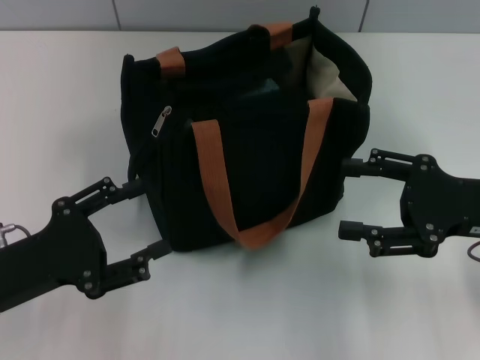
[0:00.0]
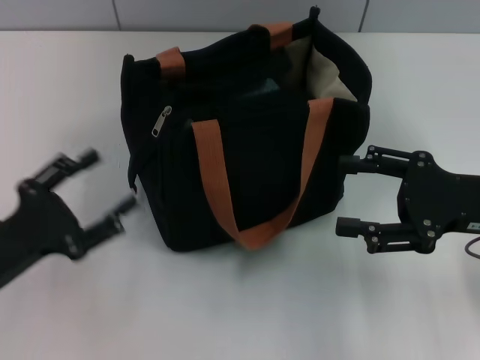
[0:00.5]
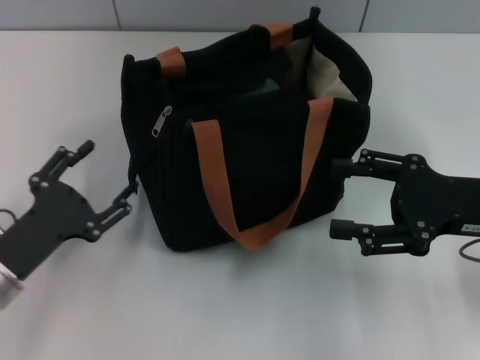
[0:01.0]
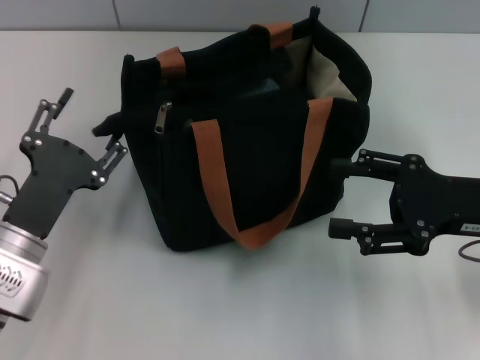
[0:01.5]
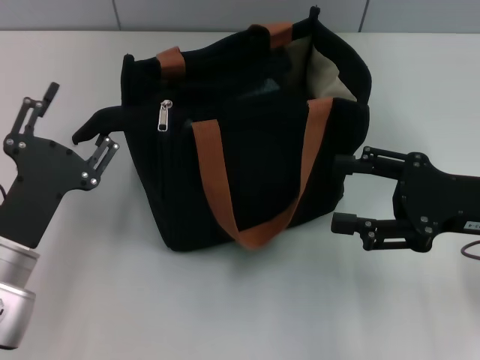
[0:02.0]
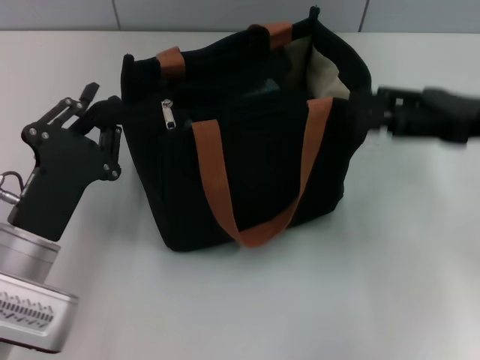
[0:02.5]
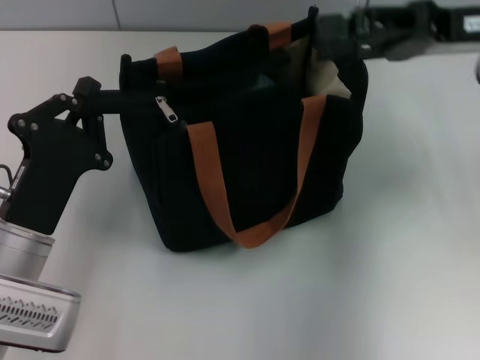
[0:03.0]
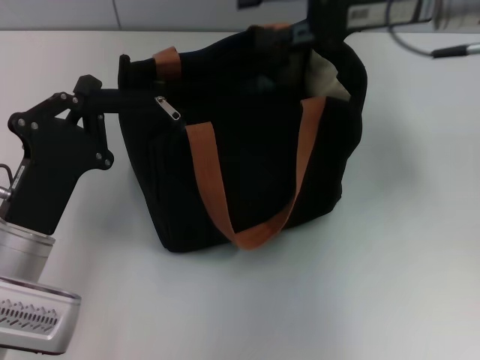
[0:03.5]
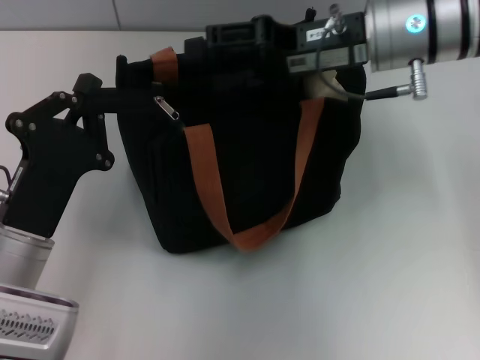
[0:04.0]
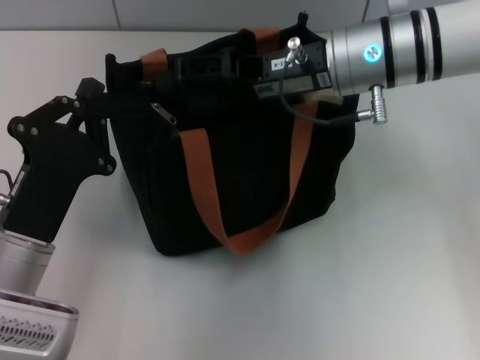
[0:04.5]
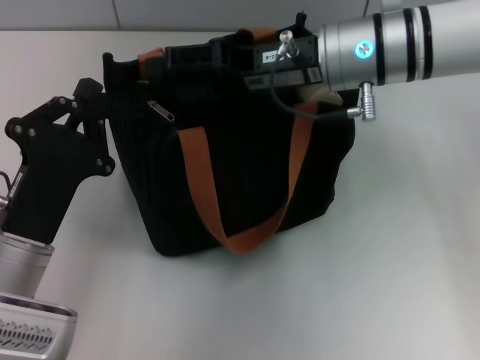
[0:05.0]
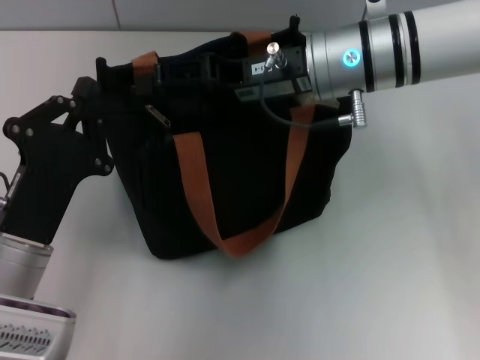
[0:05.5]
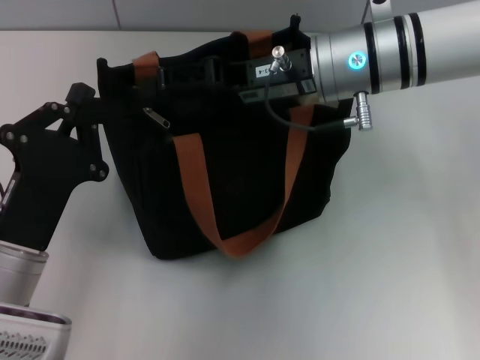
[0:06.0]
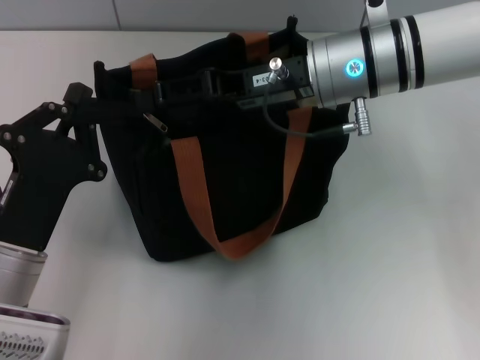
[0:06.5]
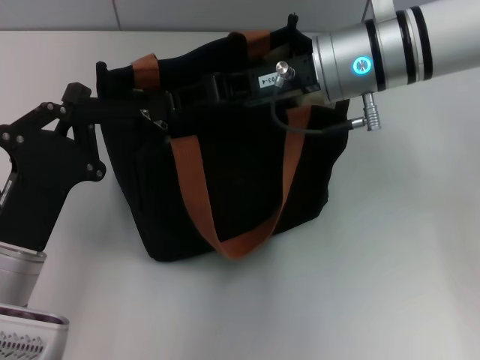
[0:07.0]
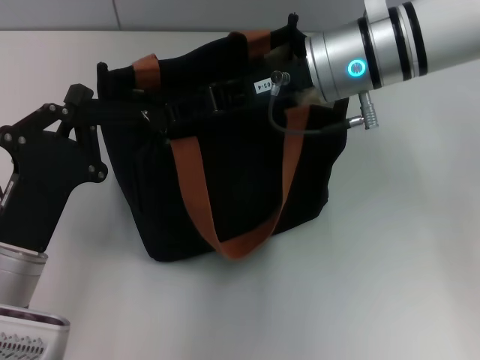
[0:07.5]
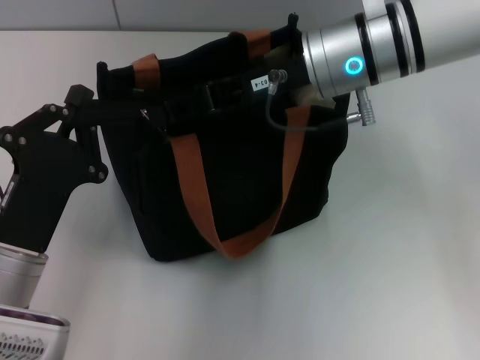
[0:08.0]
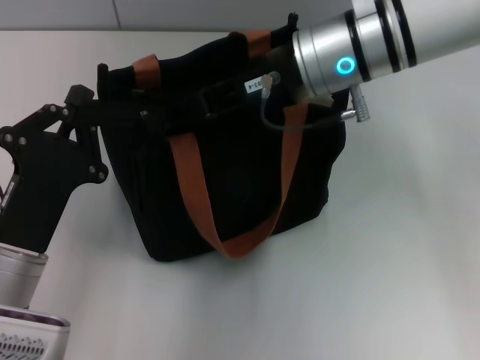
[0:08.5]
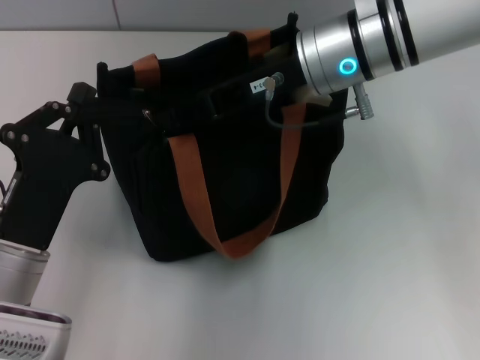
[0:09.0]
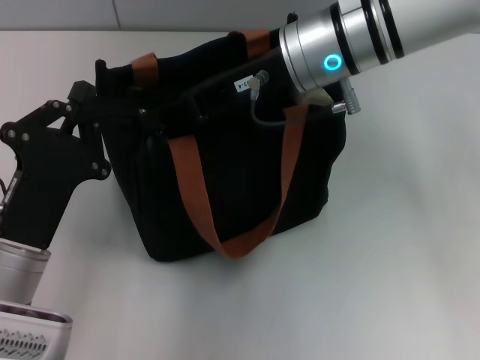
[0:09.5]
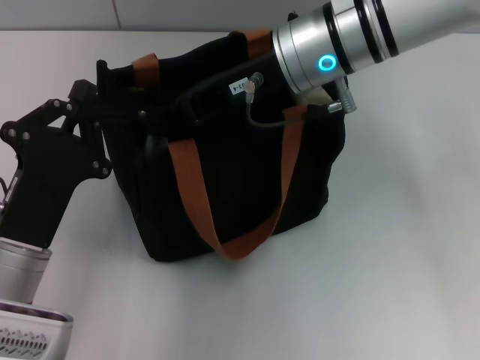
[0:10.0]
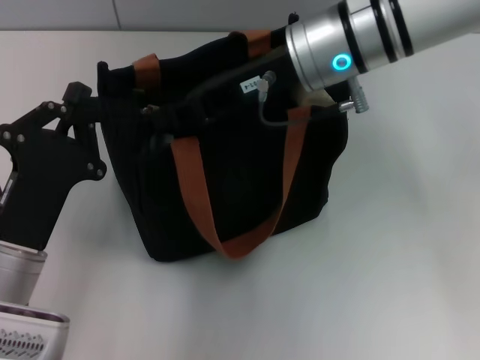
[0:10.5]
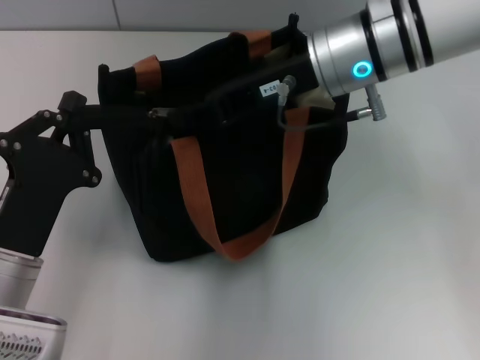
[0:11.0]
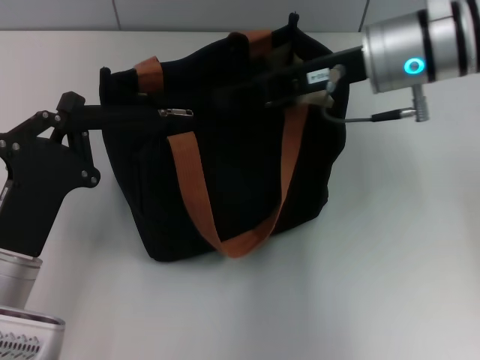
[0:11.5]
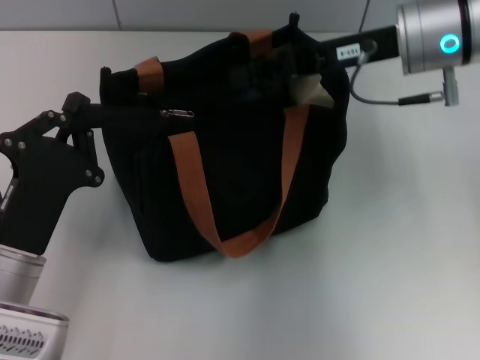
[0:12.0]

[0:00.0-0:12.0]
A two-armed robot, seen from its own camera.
0:00.0 to 0:02.0: The left gripper changes place by approximately 5 cm.
0:02.0 to 0:04.0: The left gripper closes up, while the right gripper is displaced to the left, forward and upward by about 20 cm.
0:06.0 to 0:08.0: The right gripper closes its fingers.
0:08.0 to 0:10.0: The grippers stay close to where they were, moving slightly.
0:10.0 to 0:12.0: The right gripper goes roughly 10 cm to the right.

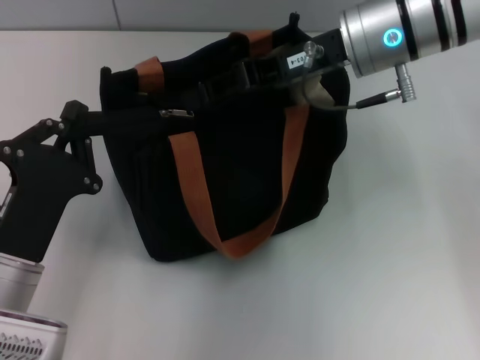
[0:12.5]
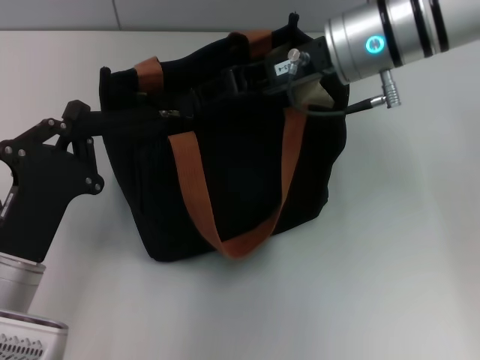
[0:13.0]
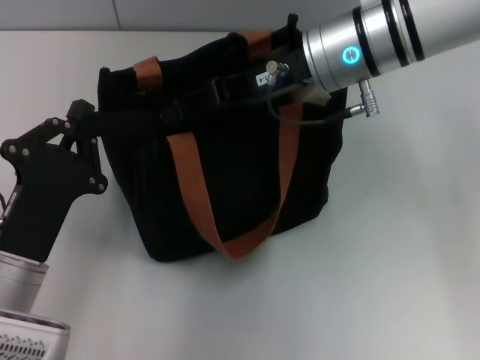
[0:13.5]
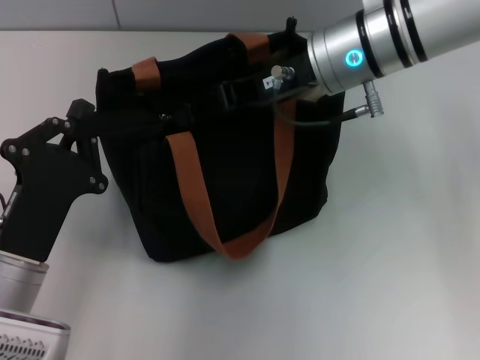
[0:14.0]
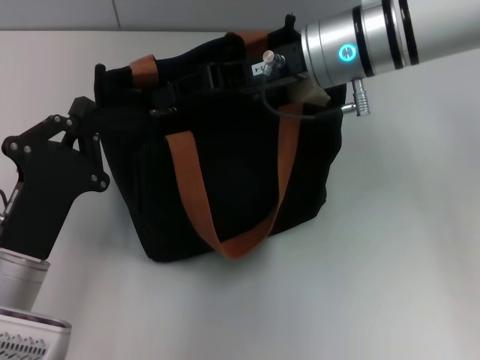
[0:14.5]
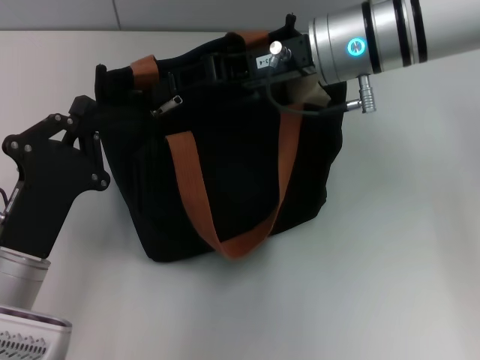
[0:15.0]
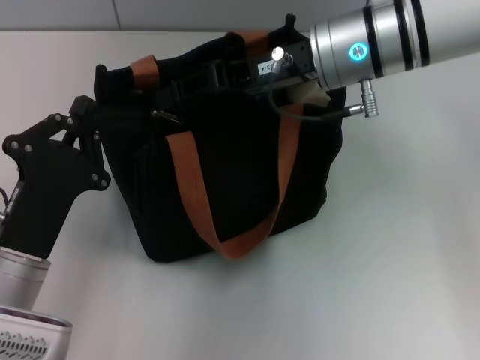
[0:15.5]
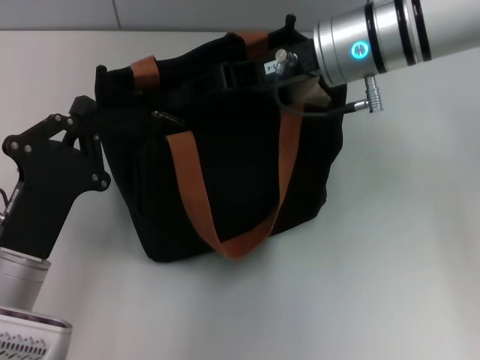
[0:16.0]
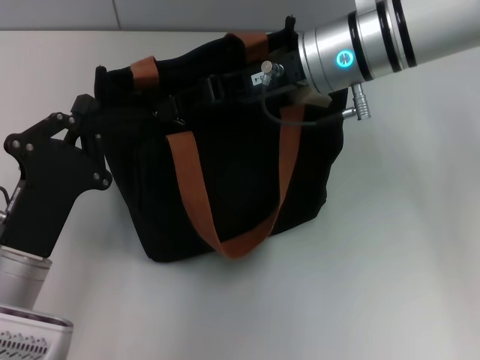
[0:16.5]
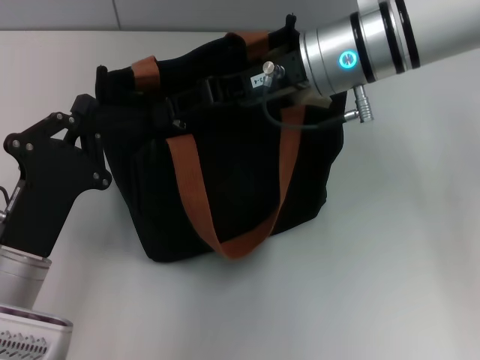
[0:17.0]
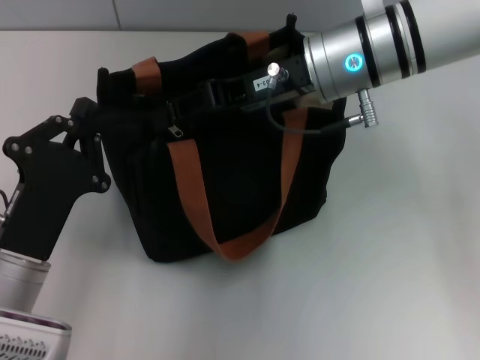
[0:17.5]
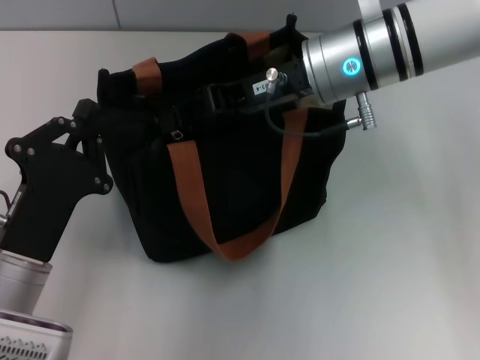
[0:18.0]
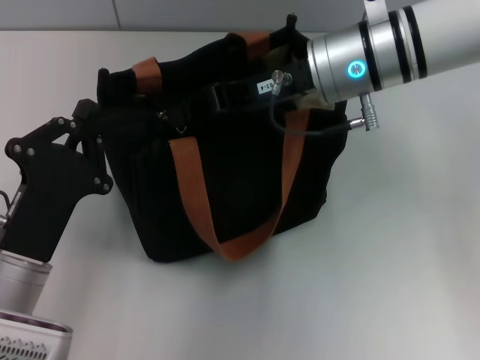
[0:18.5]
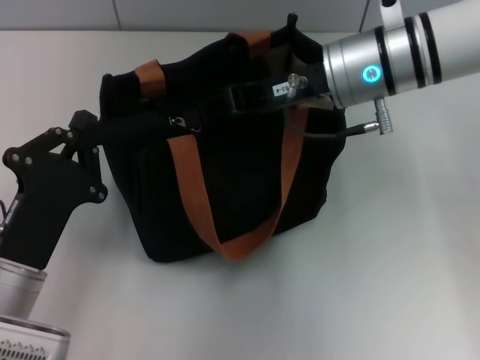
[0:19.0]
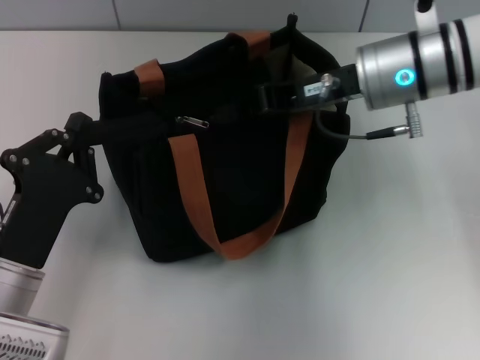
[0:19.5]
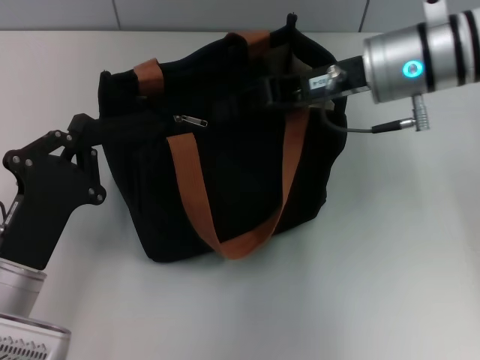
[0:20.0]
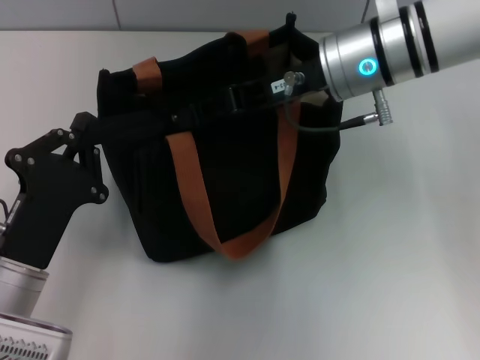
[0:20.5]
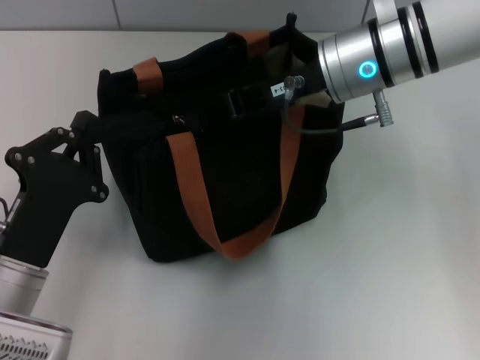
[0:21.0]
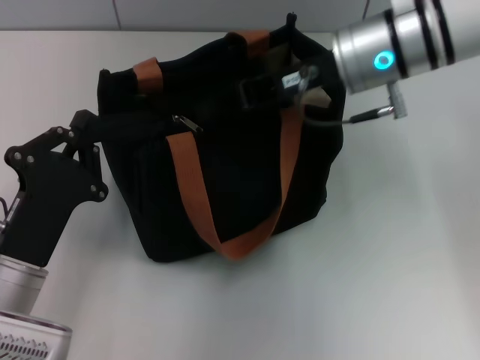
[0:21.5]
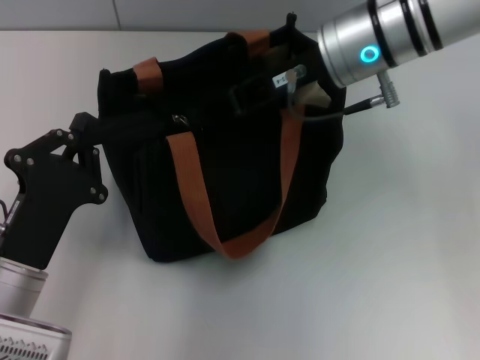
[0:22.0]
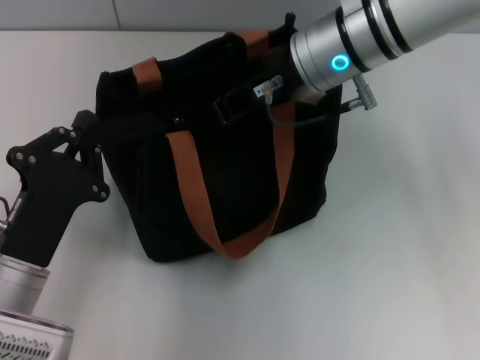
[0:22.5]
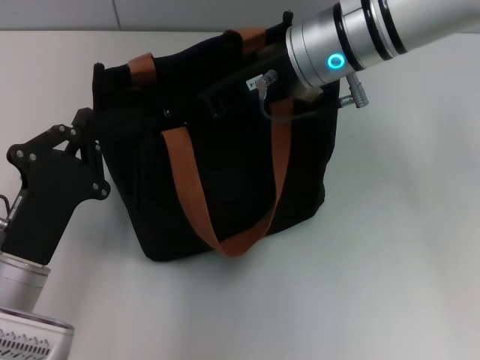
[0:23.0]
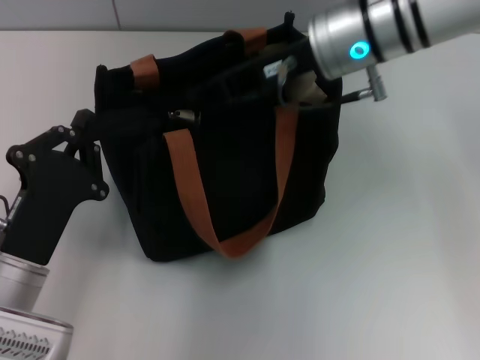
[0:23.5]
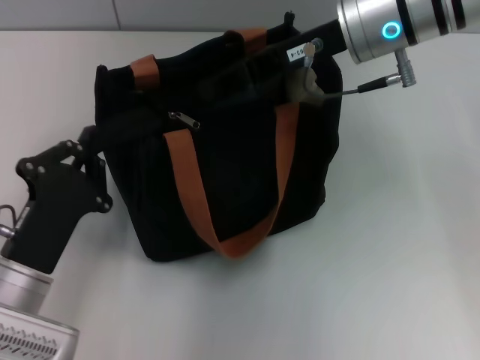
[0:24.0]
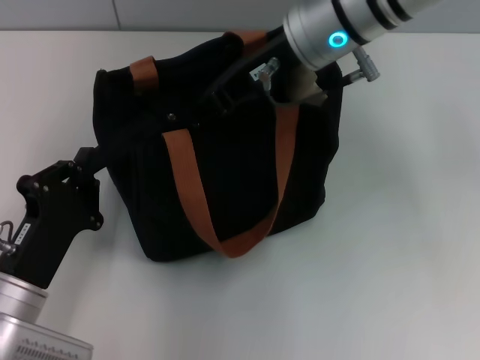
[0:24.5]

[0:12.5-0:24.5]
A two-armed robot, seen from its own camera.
0:12.5 to 0:14.5: The grippers move only a little.
0:14.5 to 0:16.5: Neither gripper changes place.
0:16.5 to 0:18.5: The right gripper closes its fingers.
0:18.5 to 0:20.5: The right gripper opens up.
0:20.5 to 0:22.5: The grippers stay close to where they were, moving slightly.
0:22.5 to 0:24.5: There are only small adjustments of the grippers.

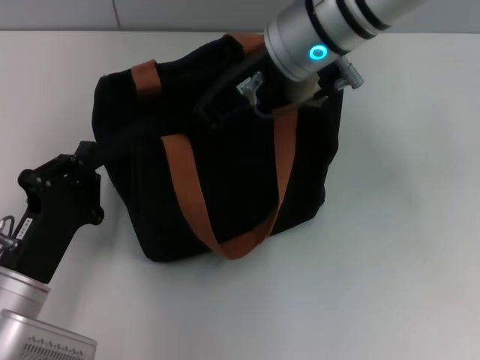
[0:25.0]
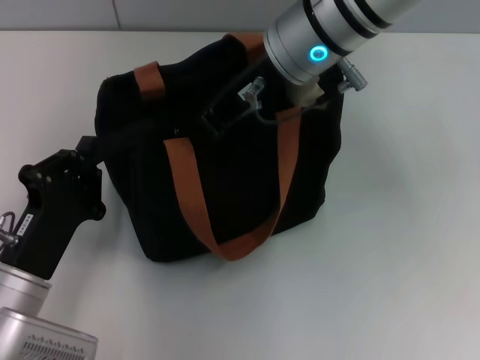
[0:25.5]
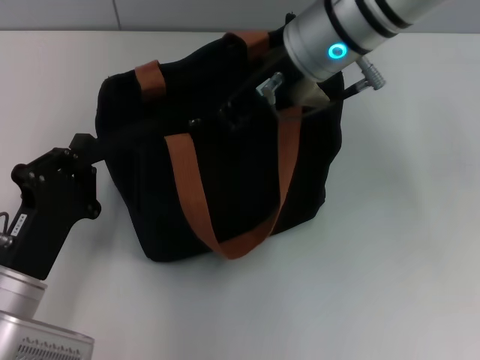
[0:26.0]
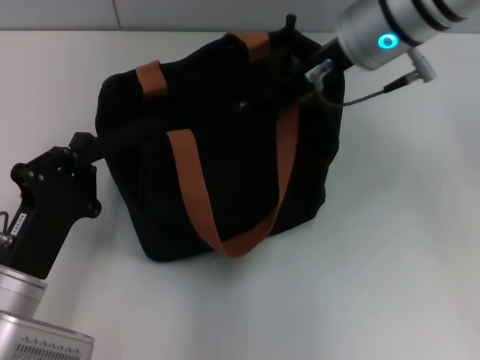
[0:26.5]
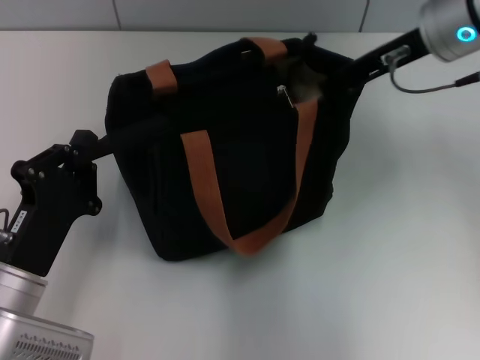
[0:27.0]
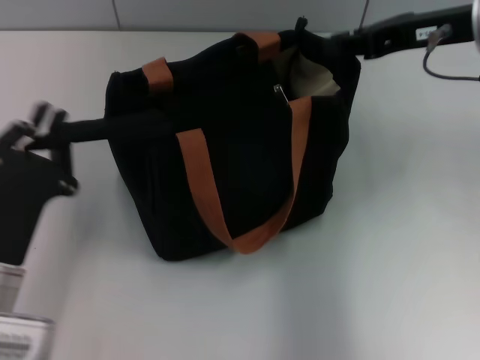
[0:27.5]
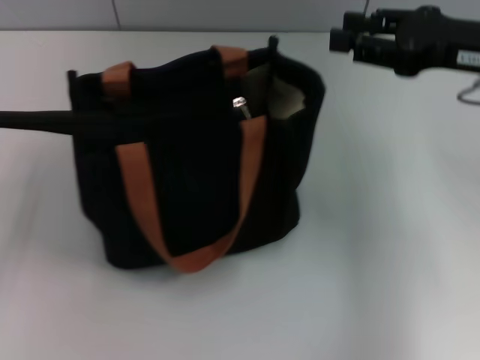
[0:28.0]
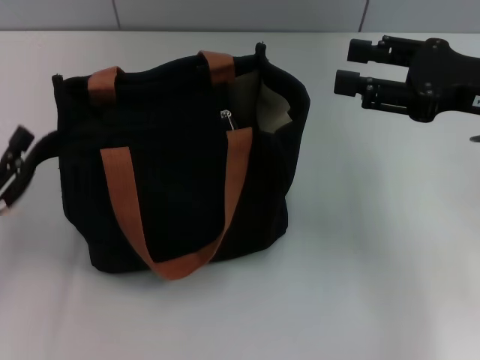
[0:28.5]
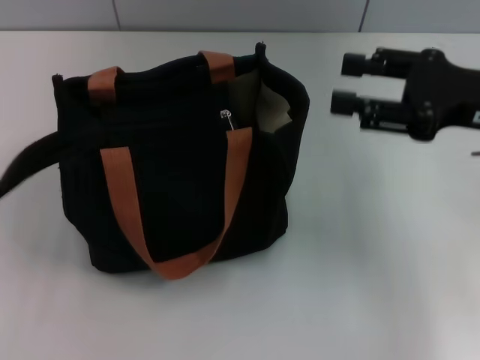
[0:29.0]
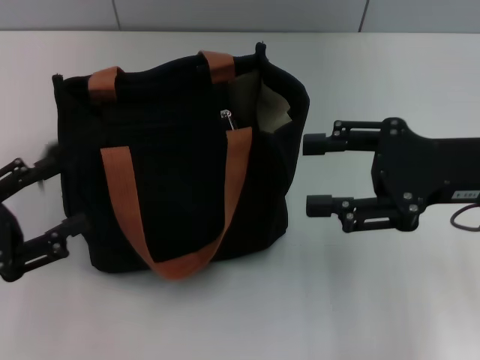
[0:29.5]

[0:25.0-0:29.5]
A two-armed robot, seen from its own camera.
Step, 0:25.0 to 0:27.0: Pull up the zipper with your right hand.
Step, 0:27.5 to 0:29.0: Grab the zipper with your left hand.
0:25.0 to 0:27.0: The right gripper is displaced to the right by approximately 15 cm, and closes up.
0:27.0 to 0:29.5: The left gripper moves to the left and upward, roughly 15 cm, and opens. Meanwhile the right gripper heads backward, to the right and downward, covering about 15 cm, and opens its fingers.
